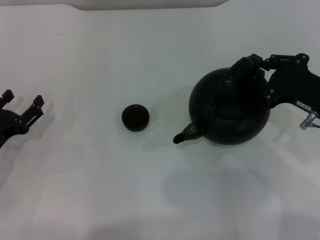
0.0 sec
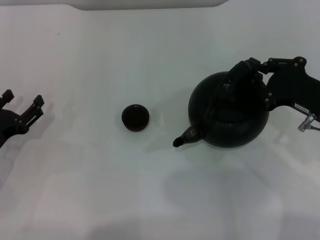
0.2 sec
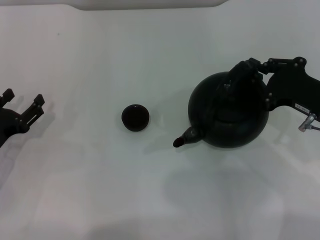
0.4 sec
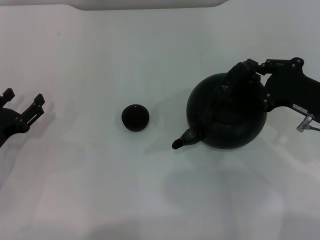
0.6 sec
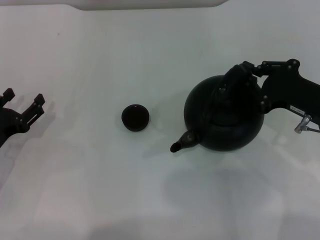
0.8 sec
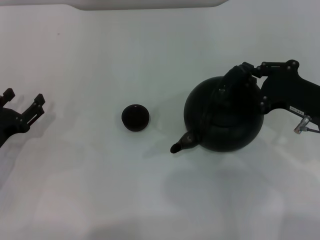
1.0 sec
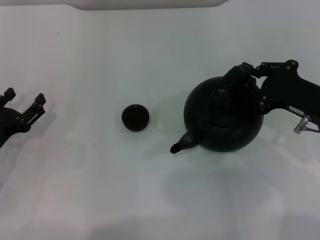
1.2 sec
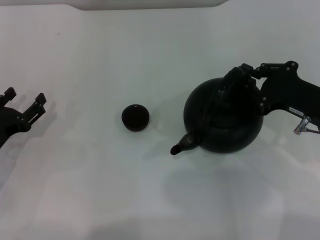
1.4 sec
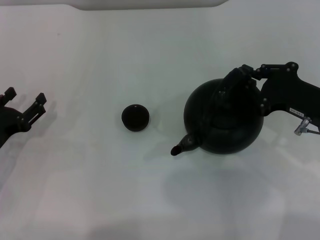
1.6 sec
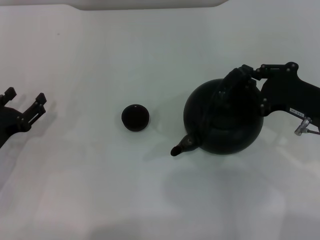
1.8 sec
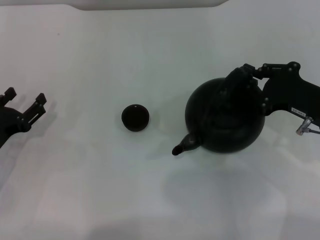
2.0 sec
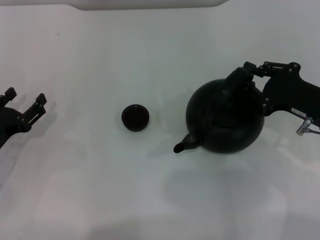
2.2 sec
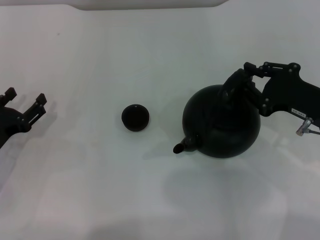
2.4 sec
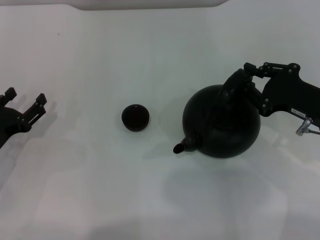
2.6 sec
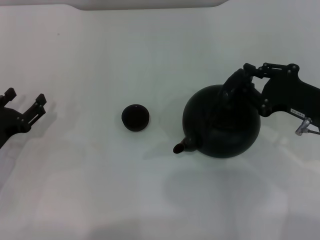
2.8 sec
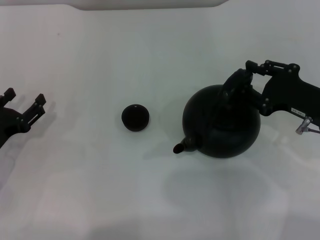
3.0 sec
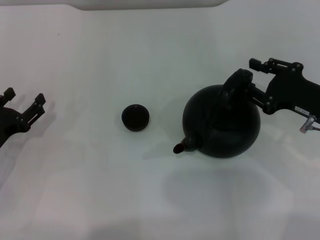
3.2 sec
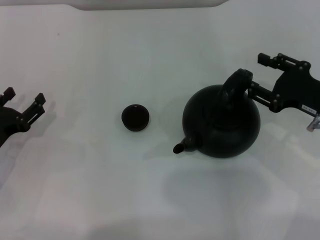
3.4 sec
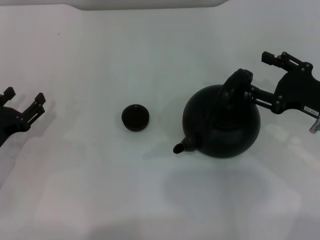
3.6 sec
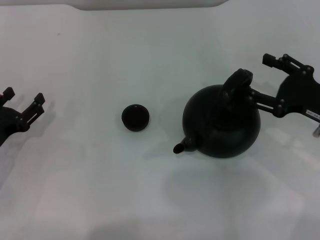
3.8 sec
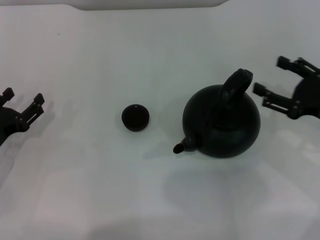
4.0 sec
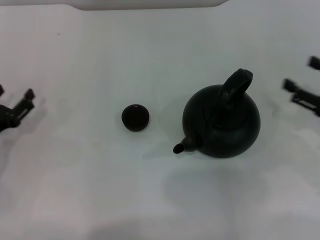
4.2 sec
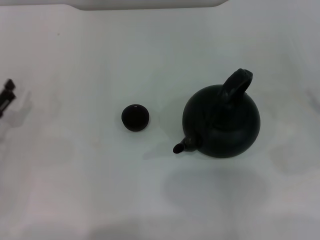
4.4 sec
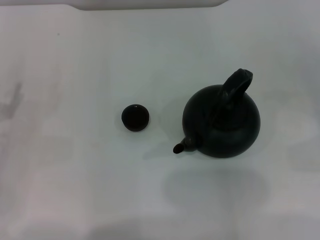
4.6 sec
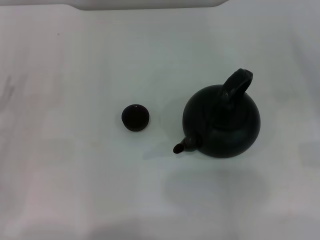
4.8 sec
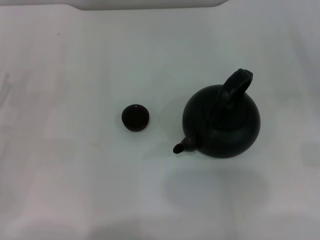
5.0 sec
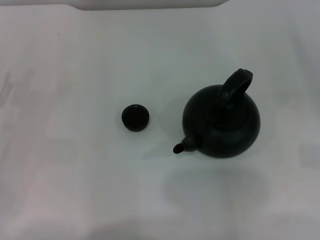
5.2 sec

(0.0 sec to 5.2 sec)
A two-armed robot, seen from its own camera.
Task of the whole recording: Grasp the handle of the teapot with one hand and pour tea into the teacup.
Step, 0.0 sec - 4.0 sec: Put down the teapot with the right gripper.
0.0 sec - 1.8 sec: The two grippers keep their place.
1.8 sec - 3.4 sec: The right gripper opens its fingers.
3.4 sec - 5.2 sec: The left gripper heads to the left, covering about 5 cm; the right gripper moves to the right, roughly 15 cm, and opens its fingers.

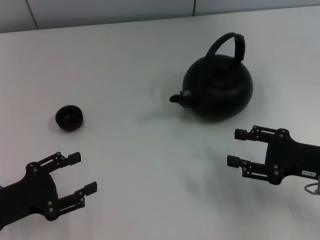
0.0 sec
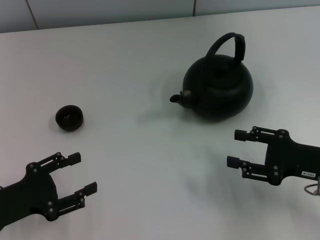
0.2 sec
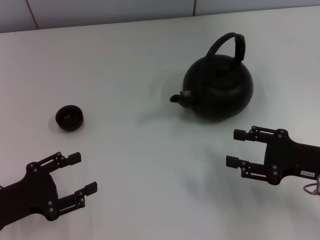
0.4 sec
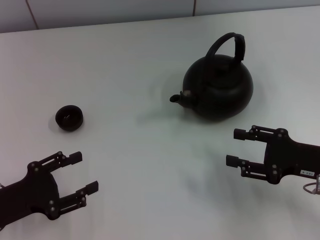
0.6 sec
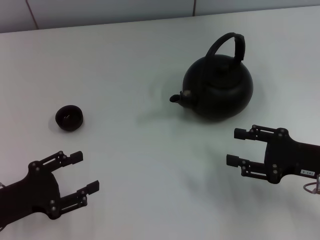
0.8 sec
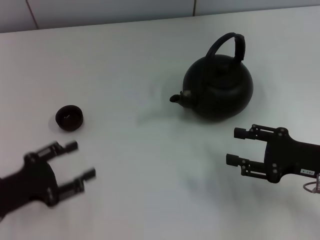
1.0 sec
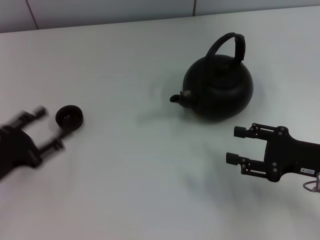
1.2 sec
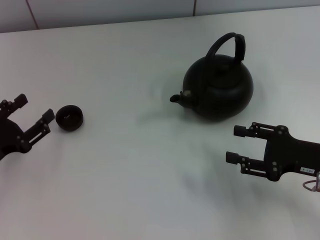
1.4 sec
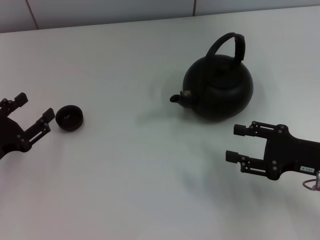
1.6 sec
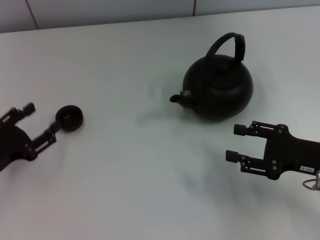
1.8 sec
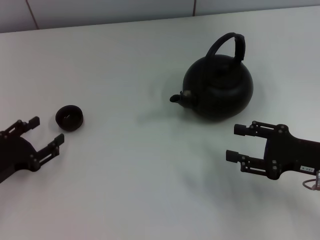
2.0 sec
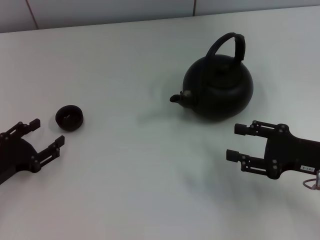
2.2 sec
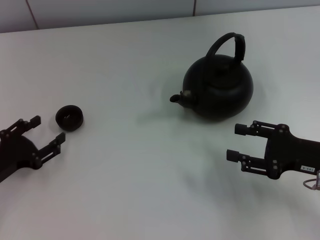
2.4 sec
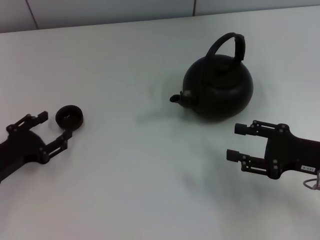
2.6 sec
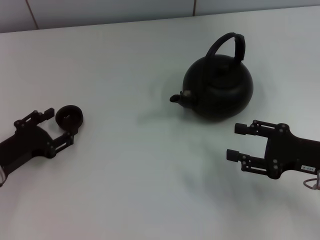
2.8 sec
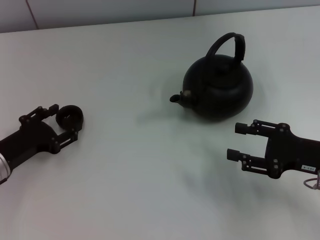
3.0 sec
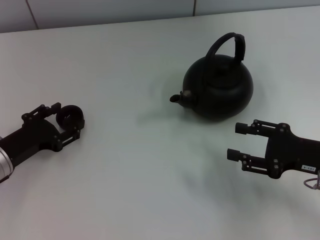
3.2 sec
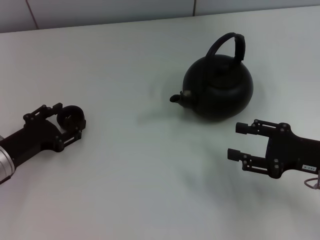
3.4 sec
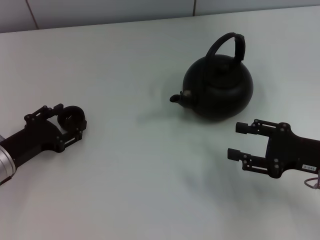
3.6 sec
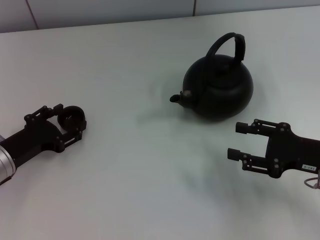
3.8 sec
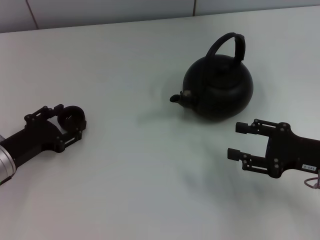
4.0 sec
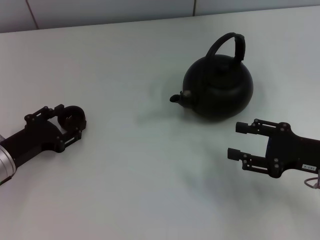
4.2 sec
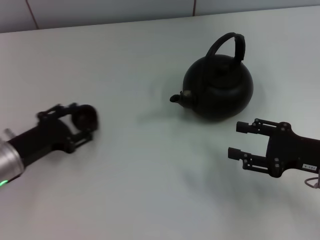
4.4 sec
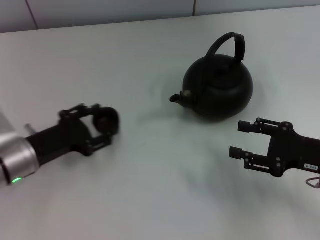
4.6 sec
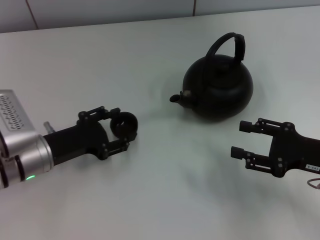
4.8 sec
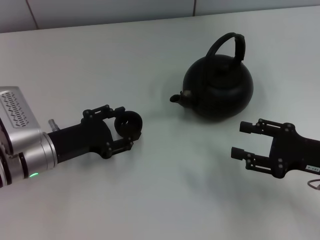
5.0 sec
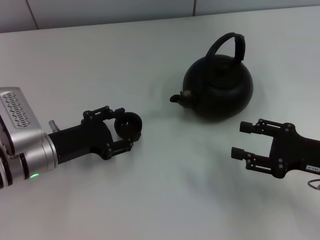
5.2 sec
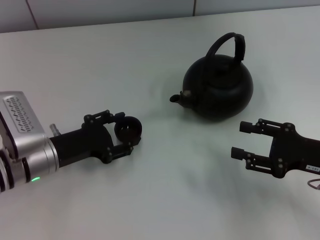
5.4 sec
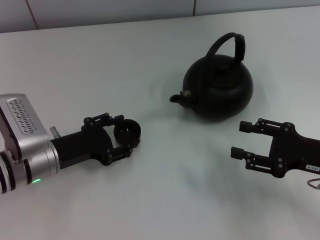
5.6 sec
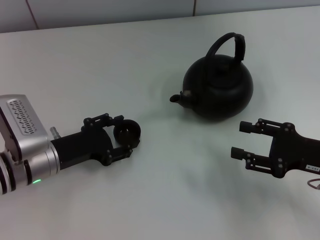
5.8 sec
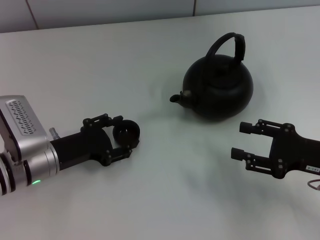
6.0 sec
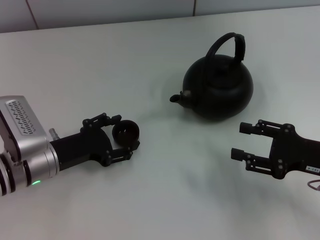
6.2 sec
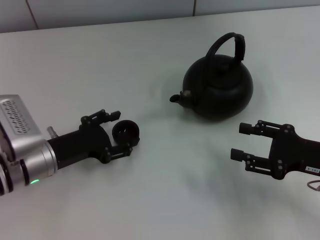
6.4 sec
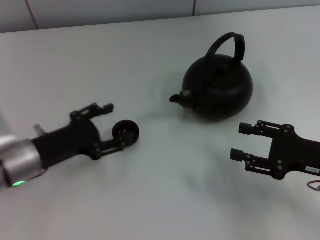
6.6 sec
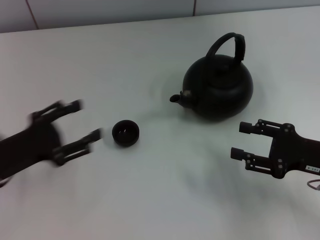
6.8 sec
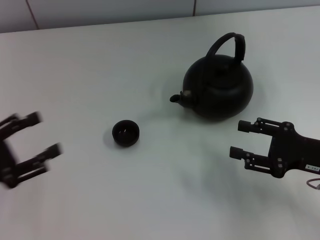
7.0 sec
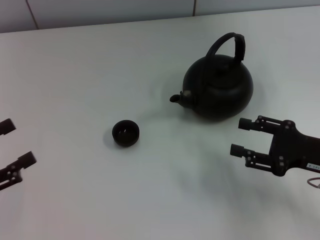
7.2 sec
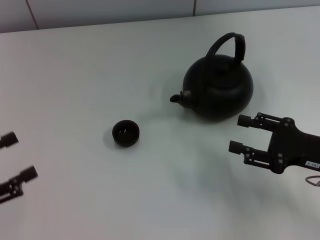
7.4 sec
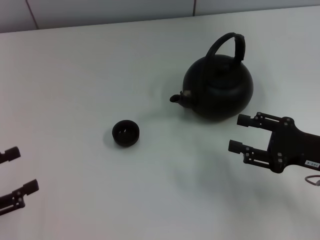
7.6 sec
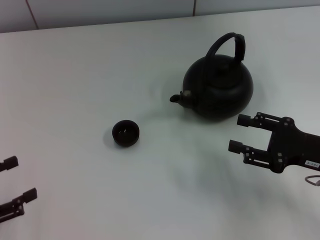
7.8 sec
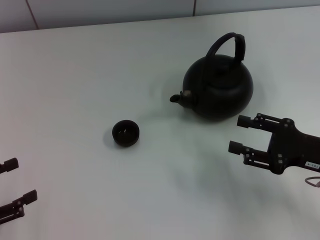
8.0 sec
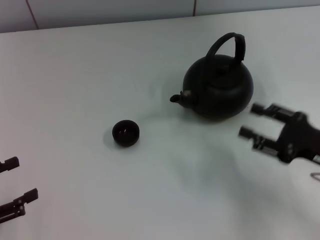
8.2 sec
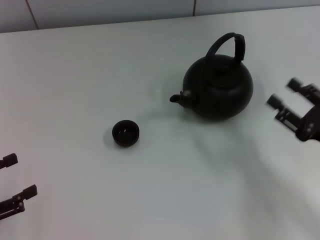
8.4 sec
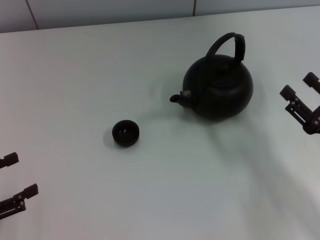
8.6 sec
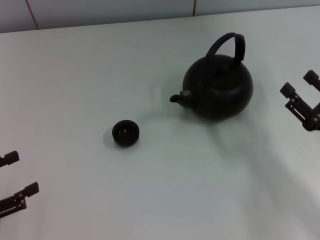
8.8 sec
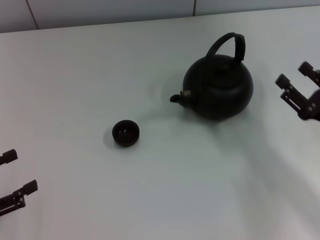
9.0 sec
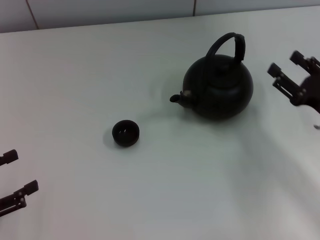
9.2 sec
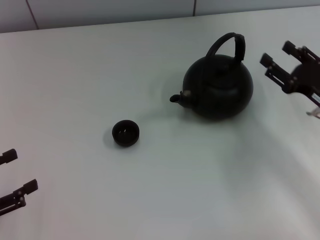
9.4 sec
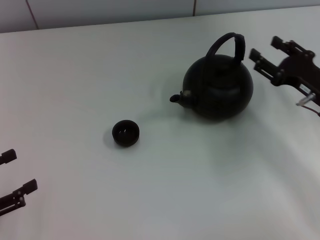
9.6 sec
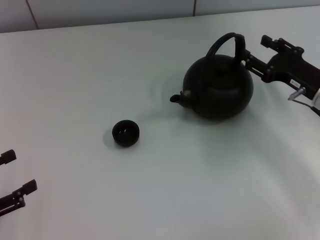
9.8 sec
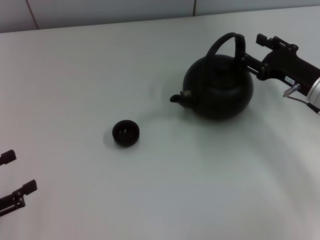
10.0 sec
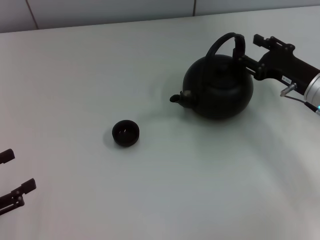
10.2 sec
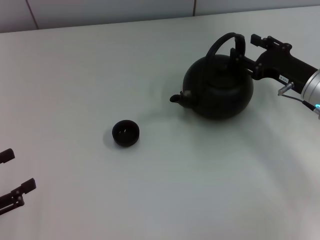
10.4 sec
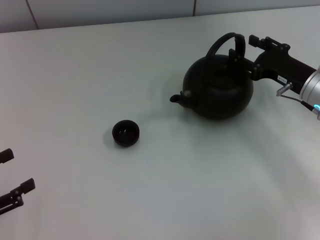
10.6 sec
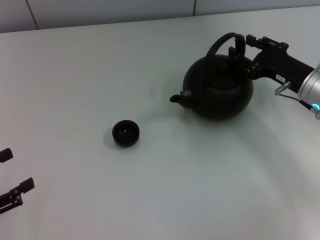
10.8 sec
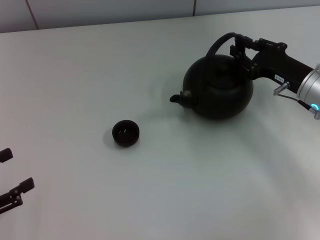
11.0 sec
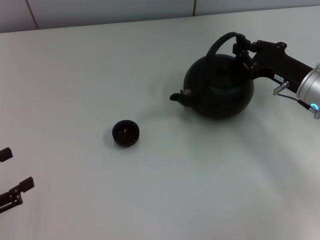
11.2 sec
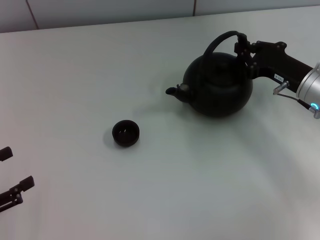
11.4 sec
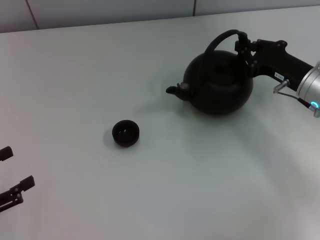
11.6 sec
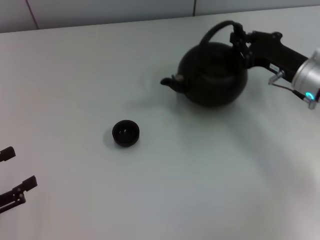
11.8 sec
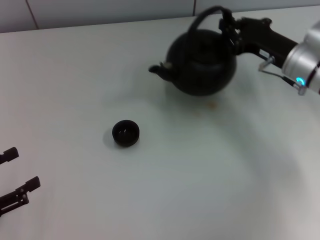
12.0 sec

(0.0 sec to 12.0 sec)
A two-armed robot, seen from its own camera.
Task of the whole recording: Grasp the handle of the teapot with one hand and pour tea into the teacup.
Step, 0.0 sec - 4.4 sec: Pick up the teacup with the left gripper.
Step, 4.8 sec - 6.6 sec: Place the teacup in the center of view with the left gripper.
Step, 6.8 sec - 11.8 sec: Pick up the teapot with the right gripper.
1.6 sec - 3.0 sec: The grippers move only a little.
3.0 sec - 4.4 sec: The grippers move only a little.
4.4 sec - 6.0 sec: The left gripper shifts some 5 cm to the right.
6.0 sec - 7.6 sec: The left gripper shifts some 20 cm to the left and backward.
9.0 sec - 10.4 sec: The right gripper shifts about 10 cm forward.
10.4 sec - 12.0 sec: The right gripper changes place by roughly 5 cm, and closes up.

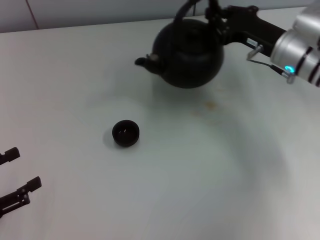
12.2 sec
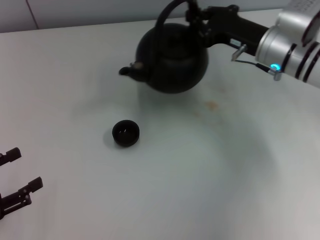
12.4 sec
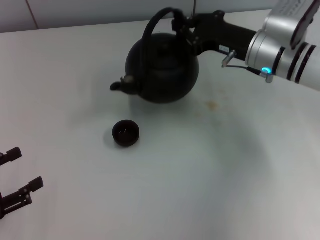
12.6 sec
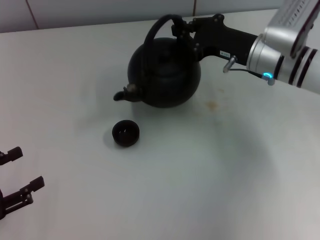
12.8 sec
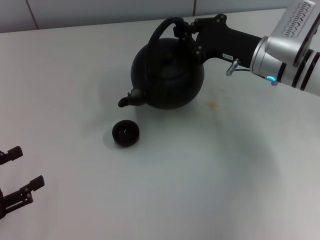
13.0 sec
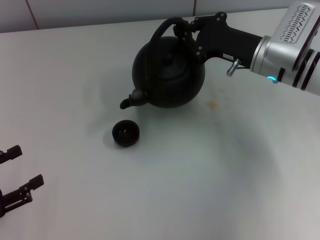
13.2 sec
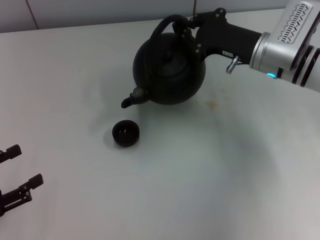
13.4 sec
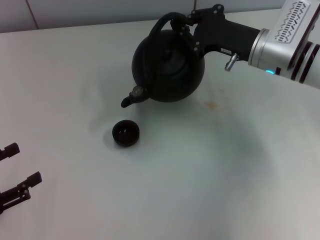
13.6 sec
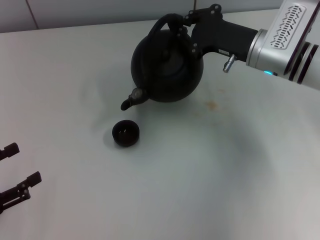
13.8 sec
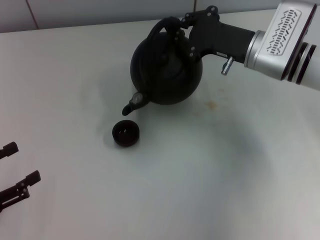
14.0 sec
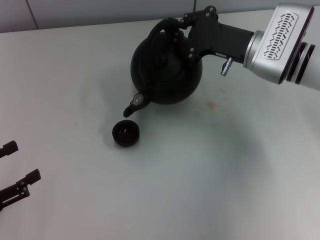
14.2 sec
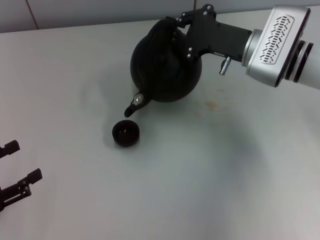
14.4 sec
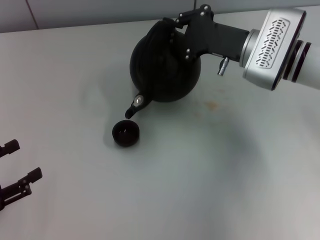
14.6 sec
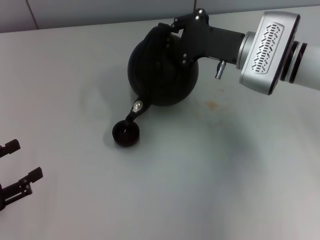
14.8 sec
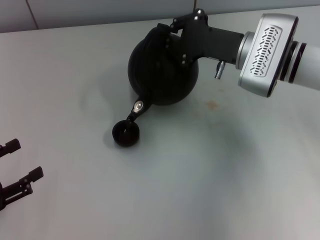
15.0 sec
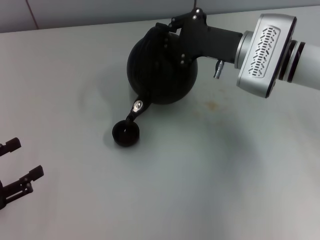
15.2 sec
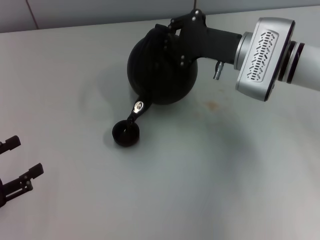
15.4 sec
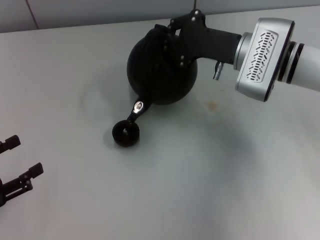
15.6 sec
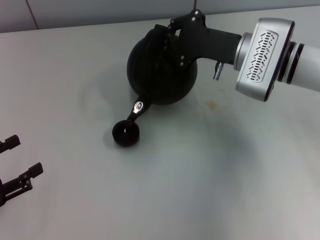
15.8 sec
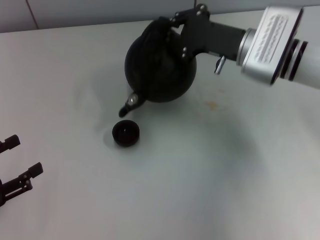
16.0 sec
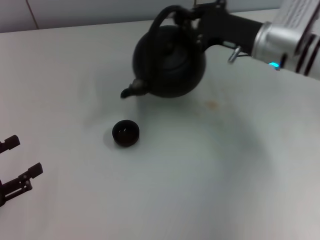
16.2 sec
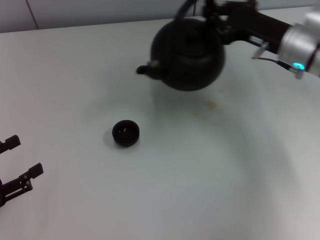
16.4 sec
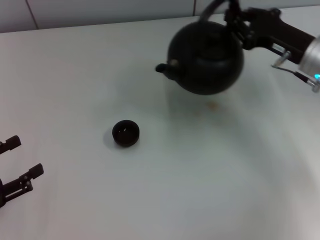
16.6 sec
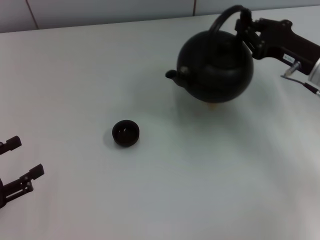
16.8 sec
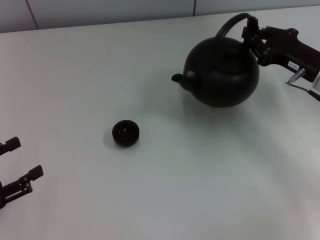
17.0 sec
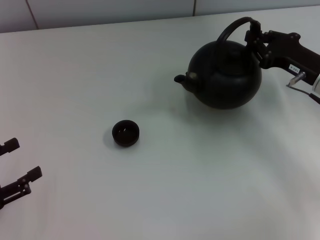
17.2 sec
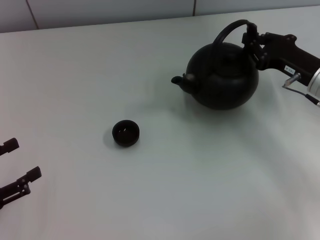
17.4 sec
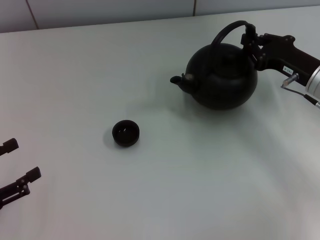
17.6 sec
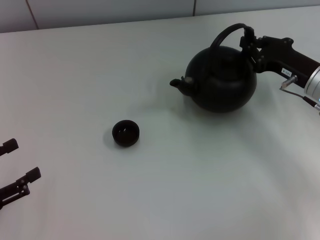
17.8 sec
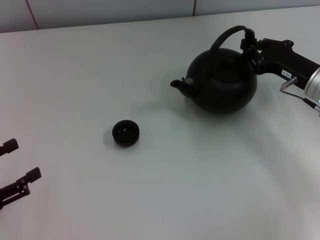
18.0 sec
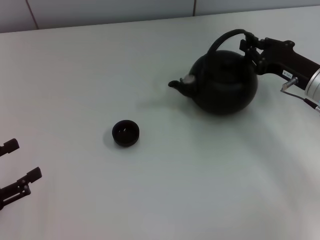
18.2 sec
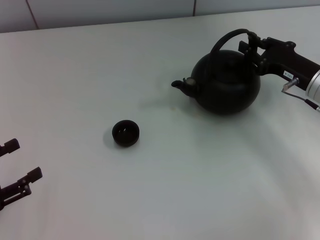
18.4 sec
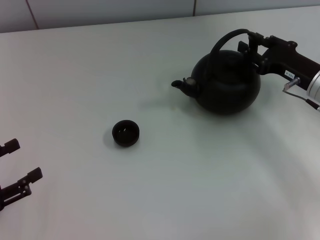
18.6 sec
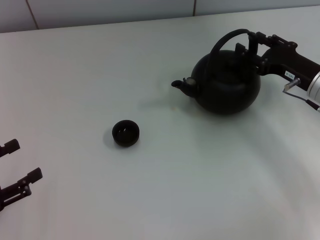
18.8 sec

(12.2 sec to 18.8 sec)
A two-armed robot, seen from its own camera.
Task of the whole recording: Grasp the handle of the teapot with one hand and pour tea into the teacup.
13.8 sec - 15.4 sec: The grippers move only a little.
15.4 sec - 17.2 sec: The right gripper is displaced to the right and backward by approximately 10 cm.
17.2 sec - 18.8 sec: The right gripper opens up.
